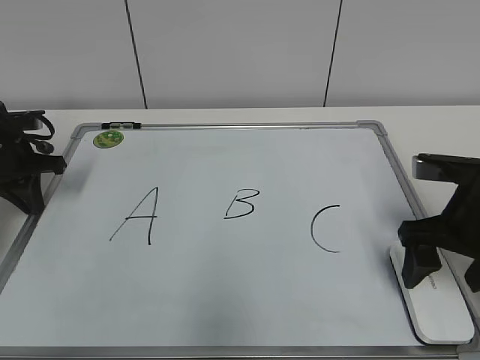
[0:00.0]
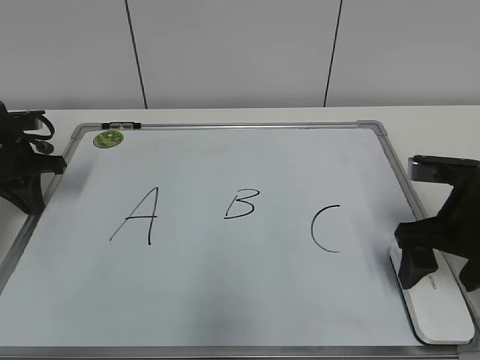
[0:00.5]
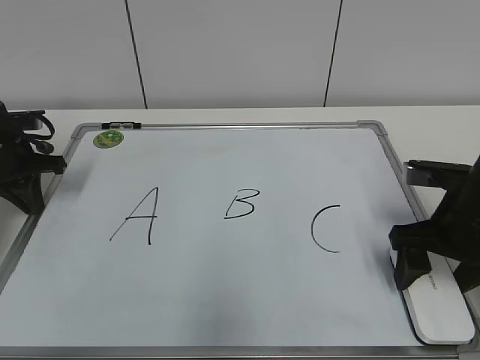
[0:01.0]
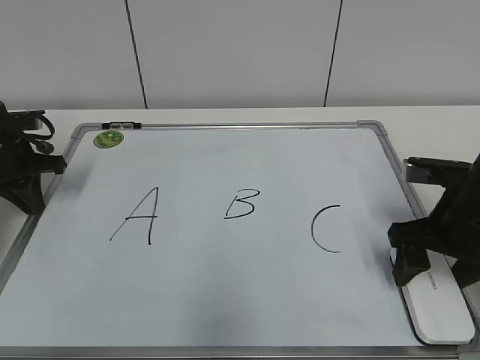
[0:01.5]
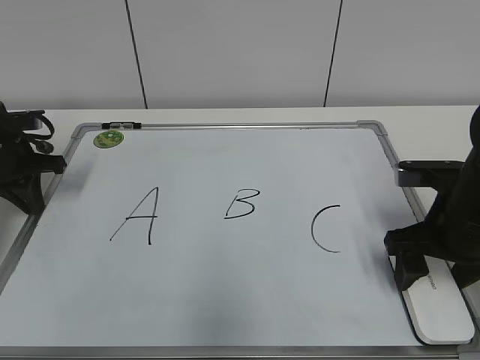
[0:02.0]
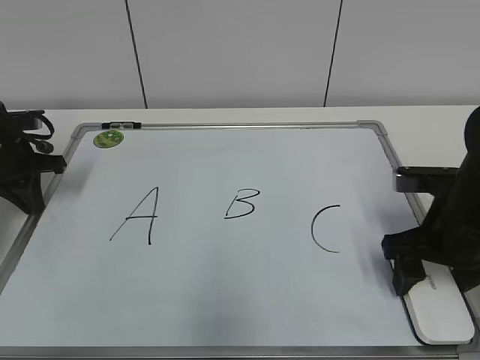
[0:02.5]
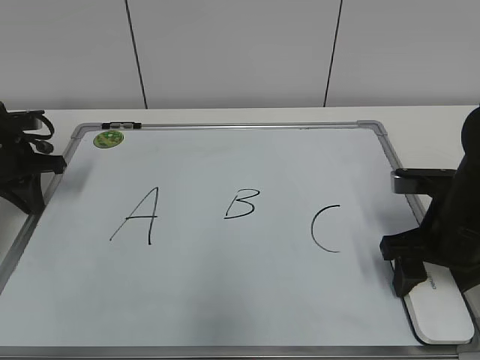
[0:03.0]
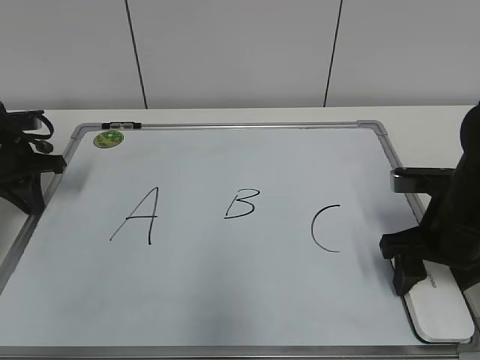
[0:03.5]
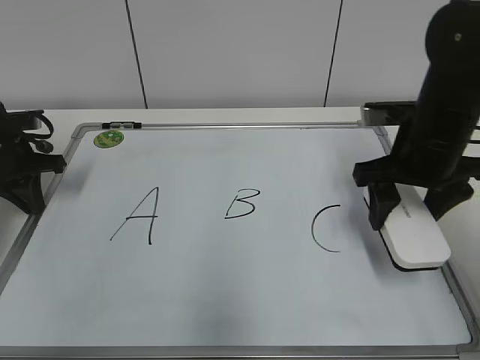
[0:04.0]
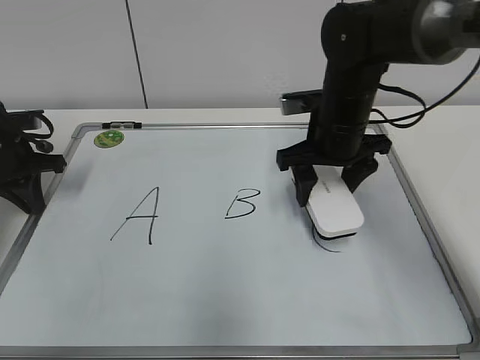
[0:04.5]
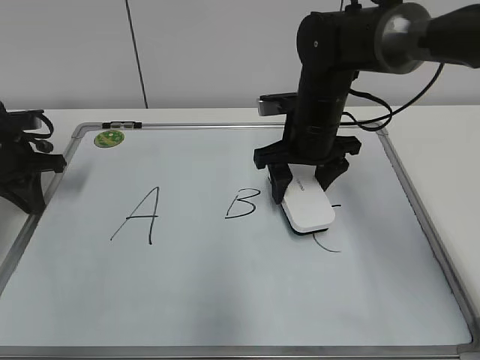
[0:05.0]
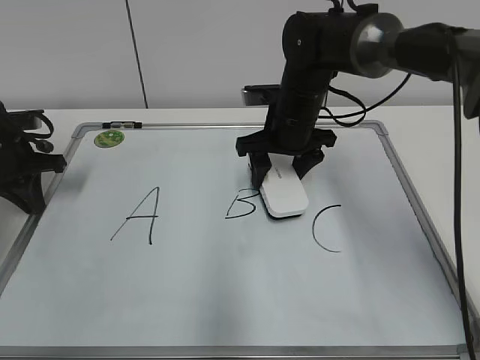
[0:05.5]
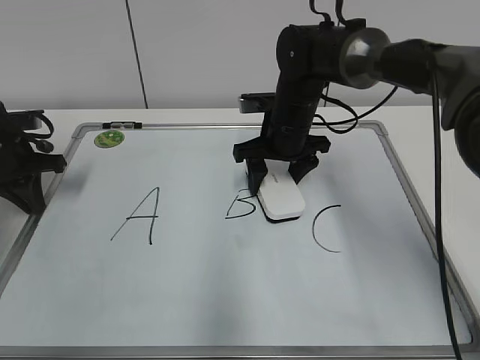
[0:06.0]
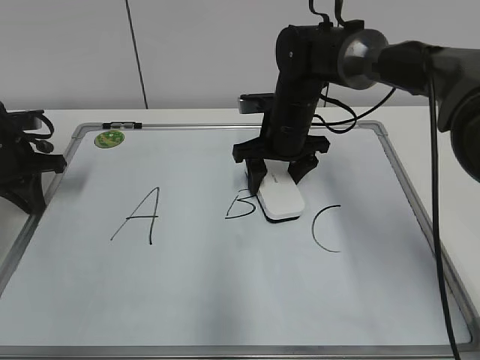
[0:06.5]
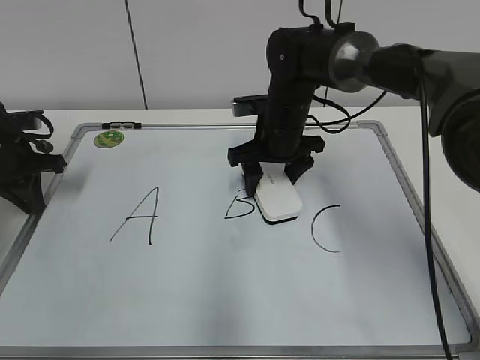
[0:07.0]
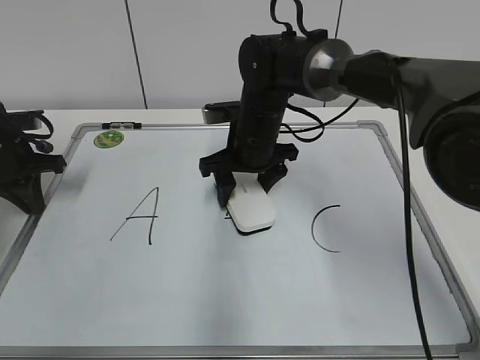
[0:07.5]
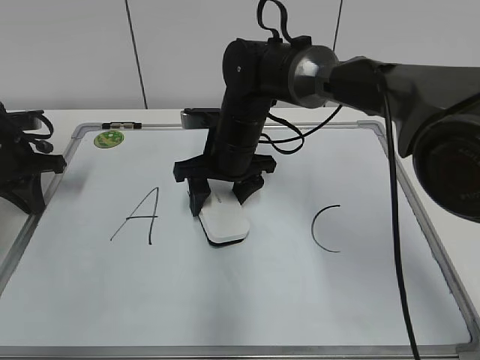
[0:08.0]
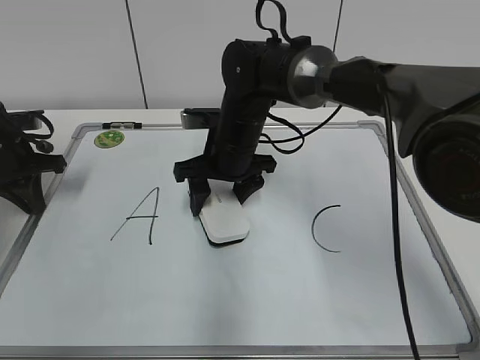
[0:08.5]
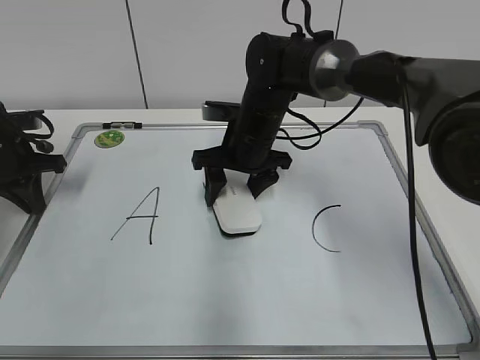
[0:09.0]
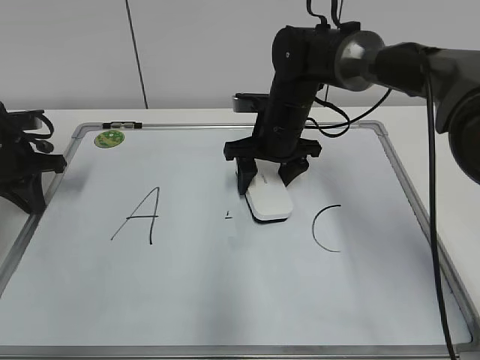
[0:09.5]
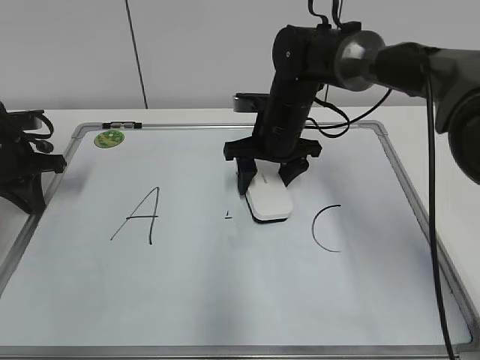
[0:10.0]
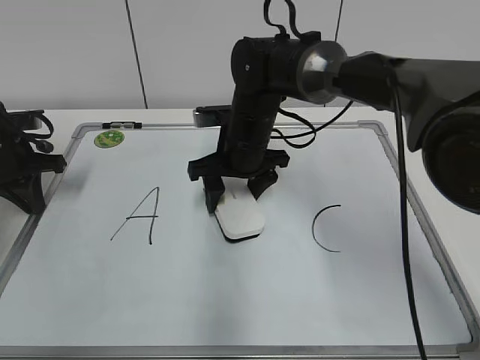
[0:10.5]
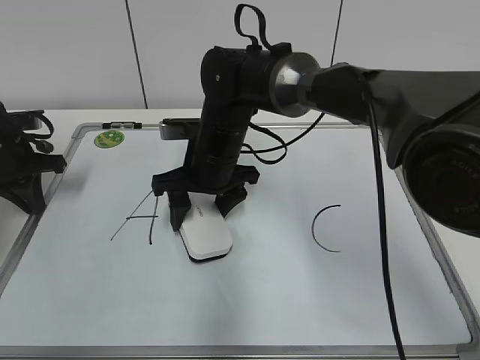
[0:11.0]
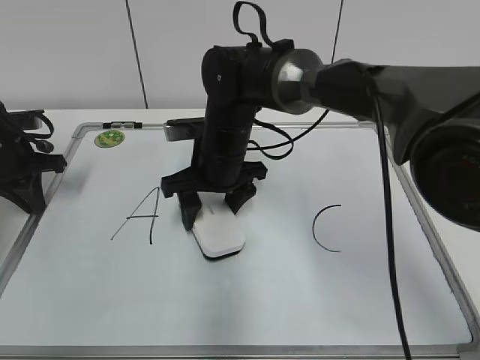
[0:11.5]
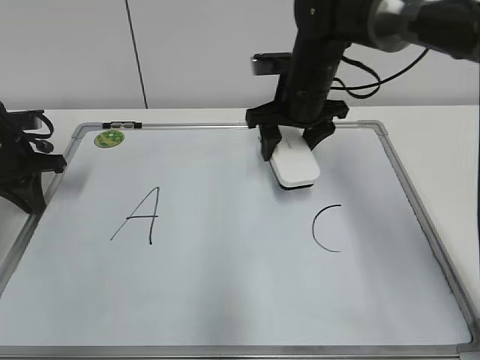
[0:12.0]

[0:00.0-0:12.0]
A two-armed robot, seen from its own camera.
Task of the whole recording: pick up the eraser on the blackboard and erase the letter "B".
Step, 0:00.0 to 0:03.0: Grab the eraser with your right hand.
Step, 0:03.5 to 0:11.5: Erase the letter B with your right hand.
0:00.0 to 0:02.0: The right gripper closes up.
0:02.0 to 0:04.0: The right gripper moves forward and upward, approximately 10 cm, and closes up.
0:04.0 to 0:06.0: The right gripper is displaced to the left, forward and downward by roughly 20 cm.
0:06.0 to 0:08.0: The right gripper travels to the left by about 10 cm.
0:08.0 to 0:10.0: The right gripper travels to the right by approximately 5 cm.
0:10.0 to 0:12.0: The right gripper goes roughly 5 cm upward, and moves approximately 10 cm to the left and comes back.

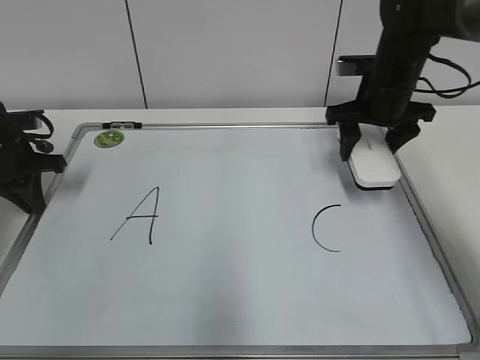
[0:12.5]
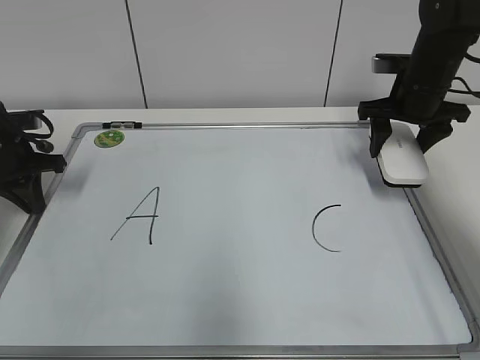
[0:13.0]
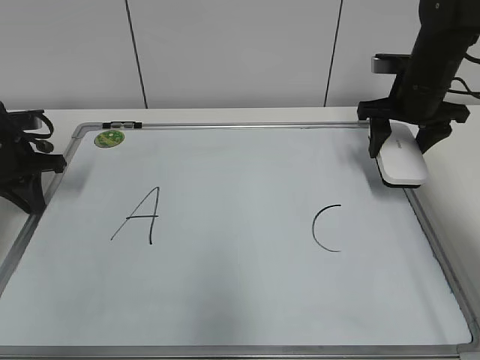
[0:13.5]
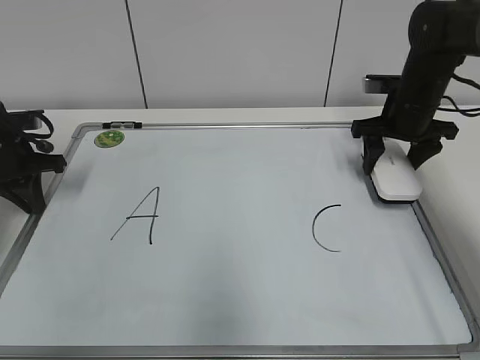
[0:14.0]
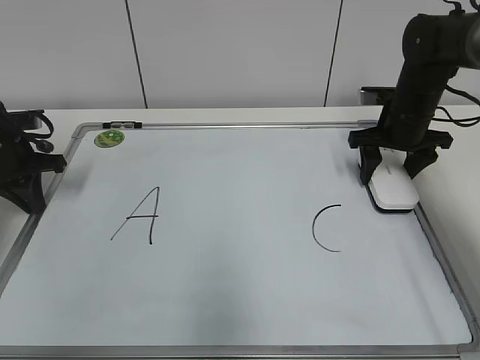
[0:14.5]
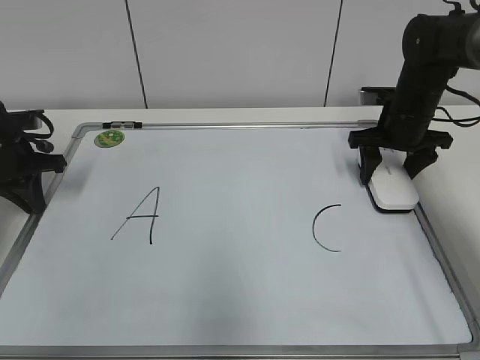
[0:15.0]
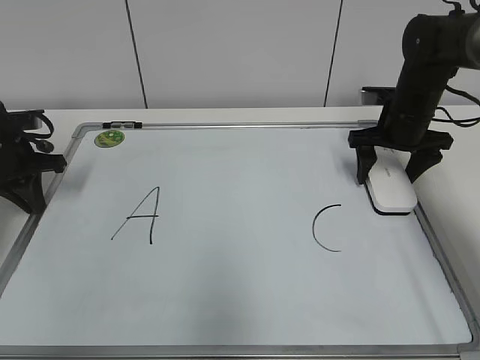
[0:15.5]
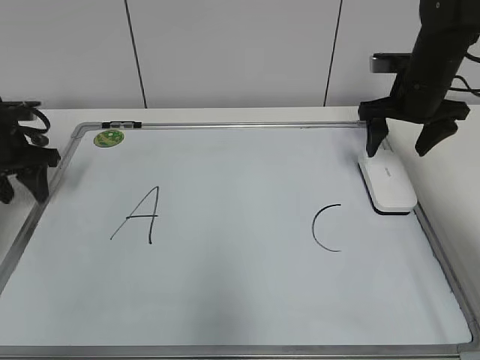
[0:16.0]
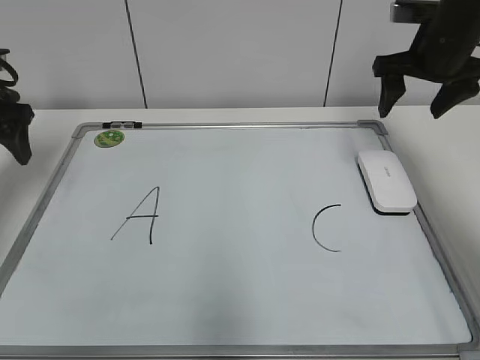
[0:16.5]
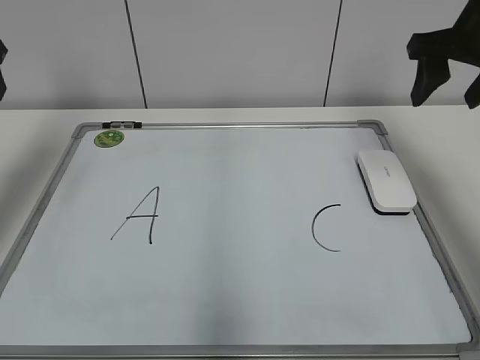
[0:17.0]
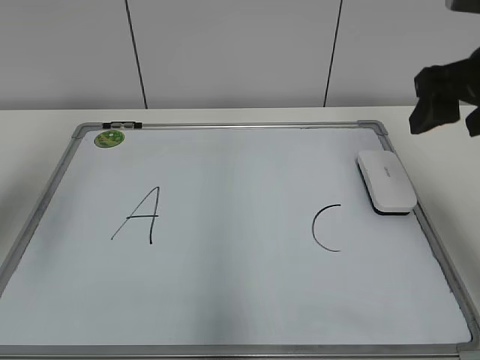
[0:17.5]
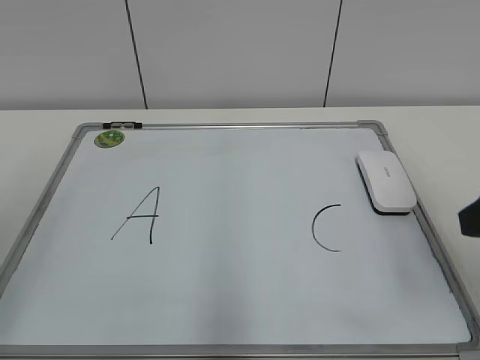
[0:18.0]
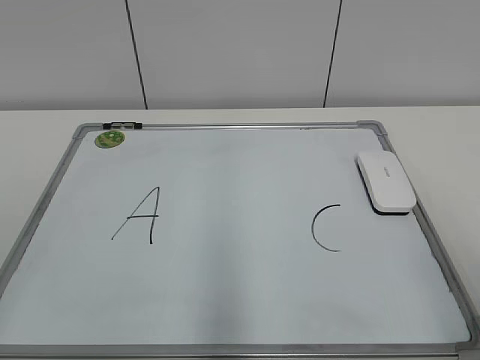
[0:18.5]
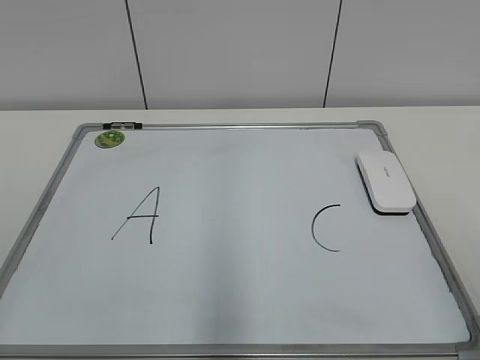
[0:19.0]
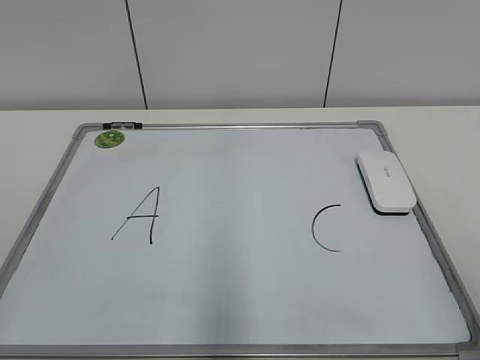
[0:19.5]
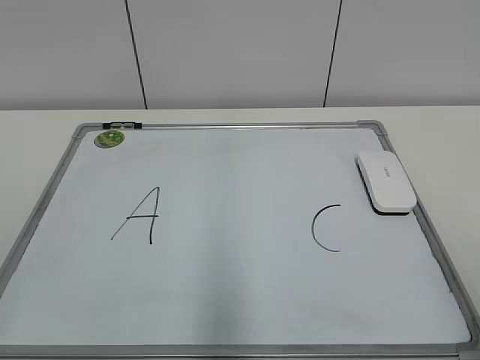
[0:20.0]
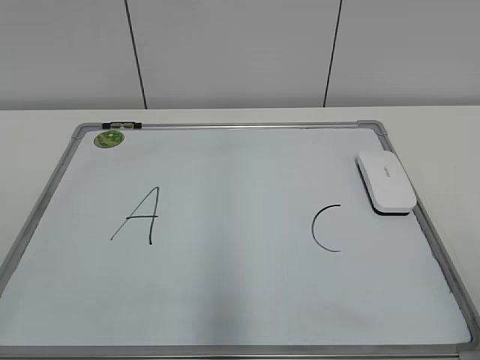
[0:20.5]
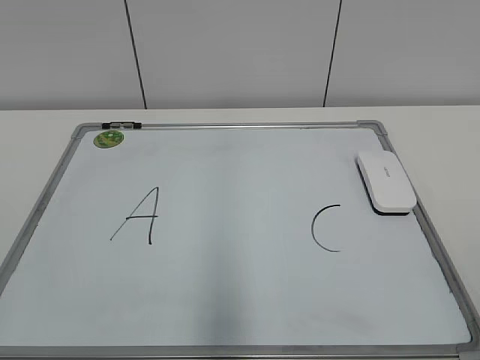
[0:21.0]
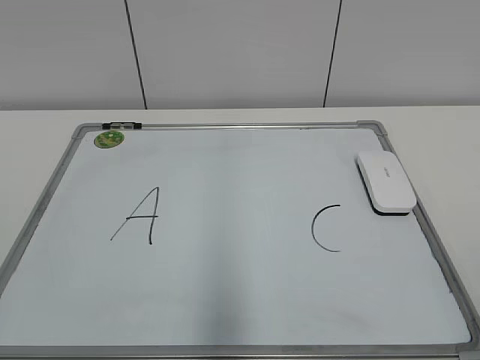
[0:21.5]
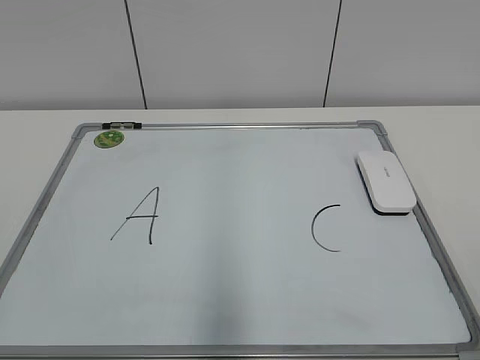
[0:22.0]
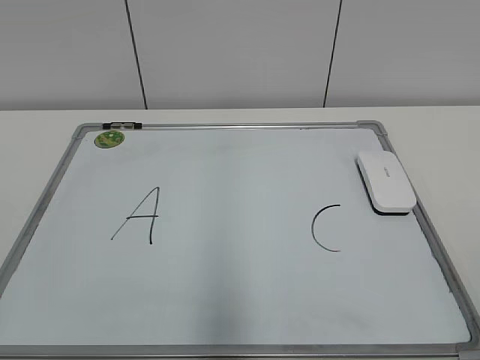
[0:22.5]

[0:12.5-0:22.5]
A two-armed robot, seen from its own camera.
Task of the whole recording: pick up the eraser on the blackboard and erase the letter "B".
Step, 0:12.5 to 0:15.0: Put down the eraser with your right hand.
0:12.5 to 0:14.5: The right gripper moves roughly 5 cm.
0:14.5 to 0:16.5: The grippers both shift upward by about 10 cm. The left gripper opens. Meanwhile the right gripper opens.
0:16.5 to 0:18.5: The two grippers go approximately 35 cm backward. The right gripper closes its fingers.
